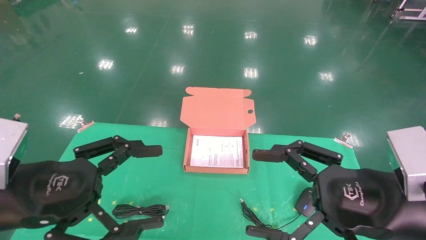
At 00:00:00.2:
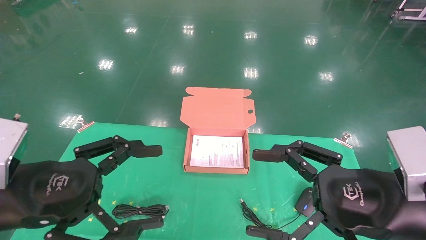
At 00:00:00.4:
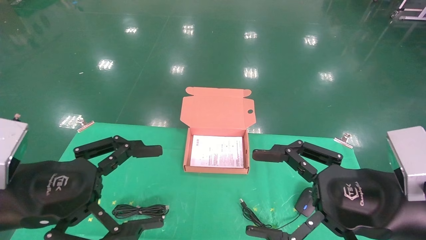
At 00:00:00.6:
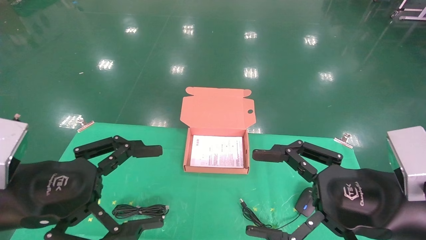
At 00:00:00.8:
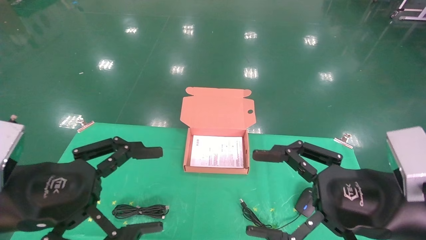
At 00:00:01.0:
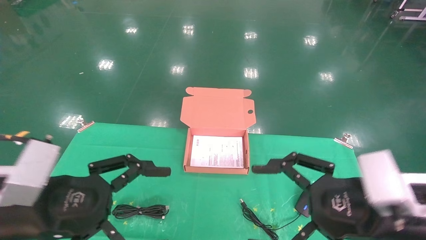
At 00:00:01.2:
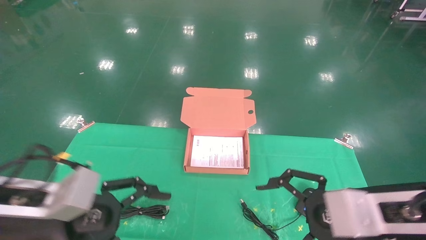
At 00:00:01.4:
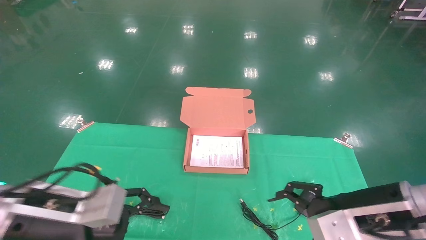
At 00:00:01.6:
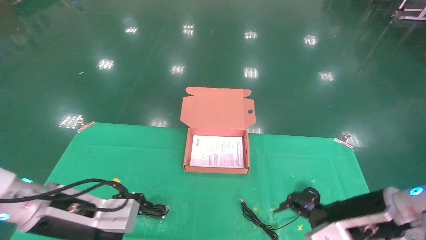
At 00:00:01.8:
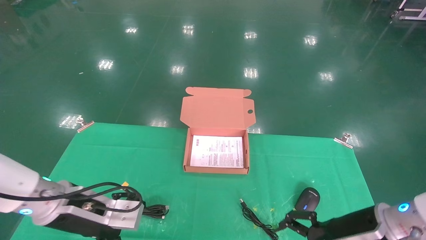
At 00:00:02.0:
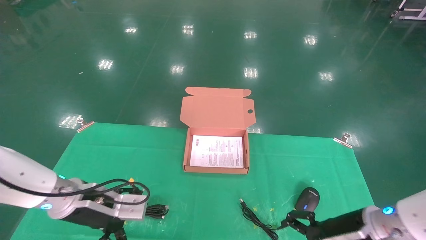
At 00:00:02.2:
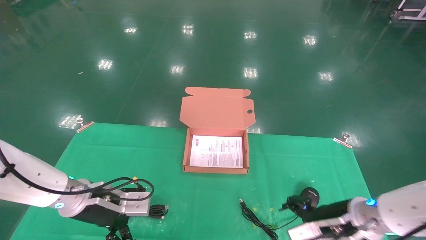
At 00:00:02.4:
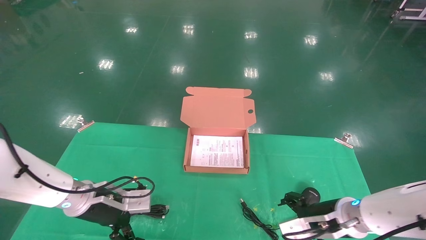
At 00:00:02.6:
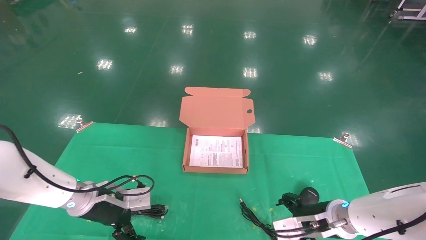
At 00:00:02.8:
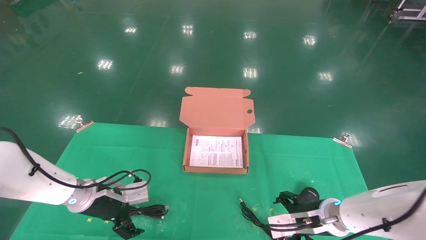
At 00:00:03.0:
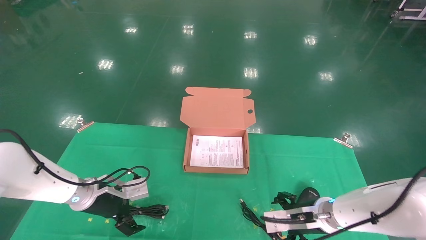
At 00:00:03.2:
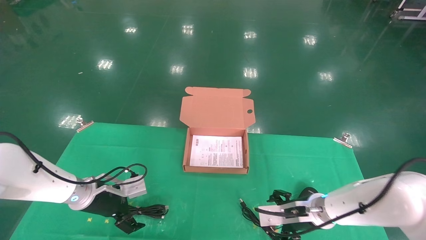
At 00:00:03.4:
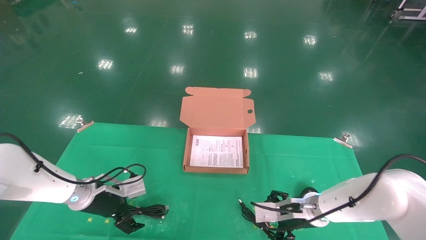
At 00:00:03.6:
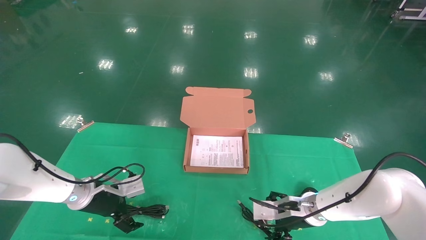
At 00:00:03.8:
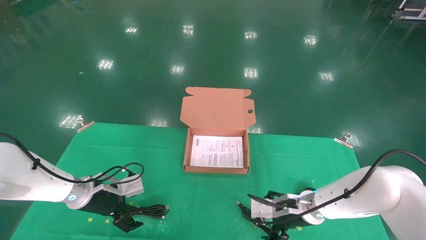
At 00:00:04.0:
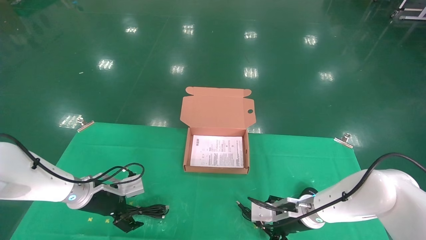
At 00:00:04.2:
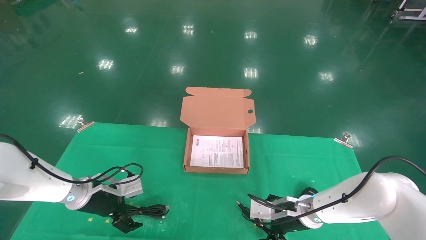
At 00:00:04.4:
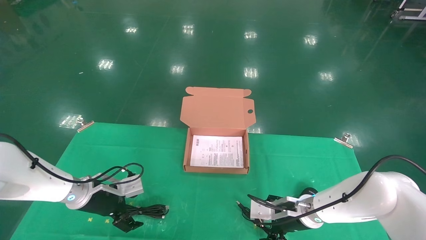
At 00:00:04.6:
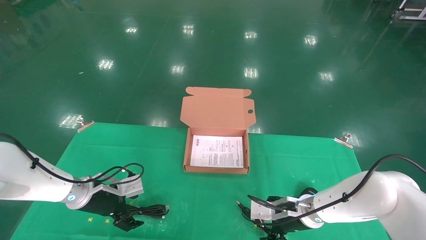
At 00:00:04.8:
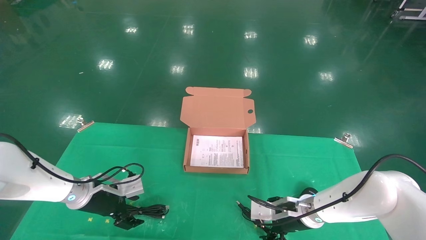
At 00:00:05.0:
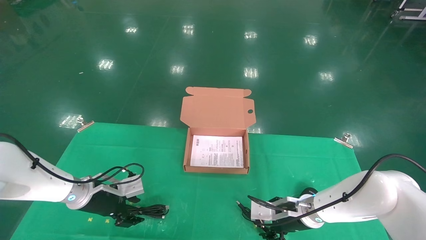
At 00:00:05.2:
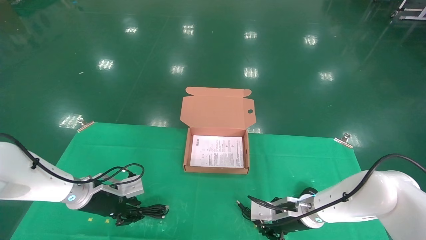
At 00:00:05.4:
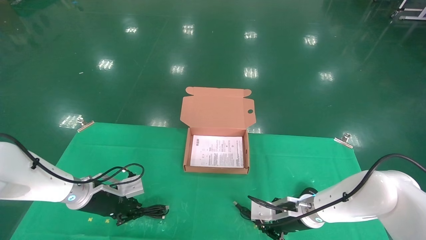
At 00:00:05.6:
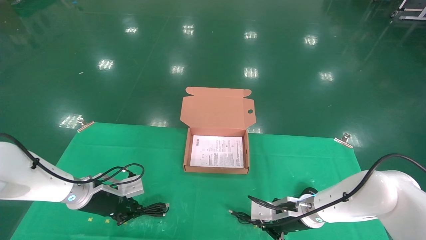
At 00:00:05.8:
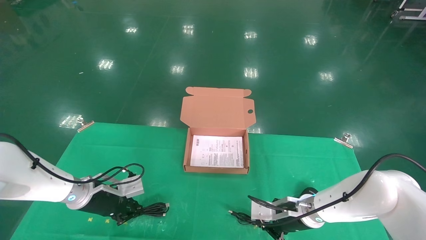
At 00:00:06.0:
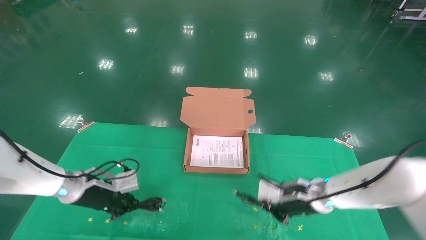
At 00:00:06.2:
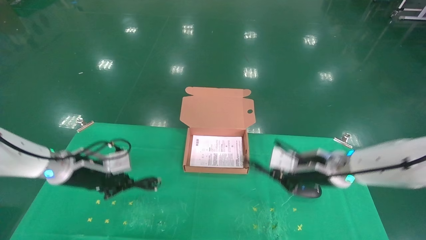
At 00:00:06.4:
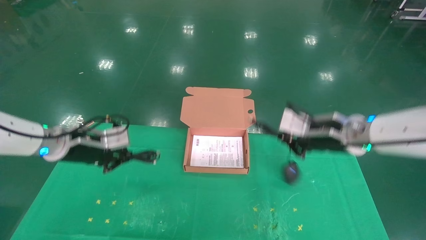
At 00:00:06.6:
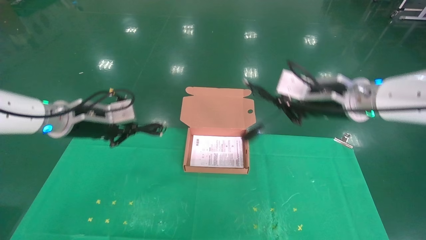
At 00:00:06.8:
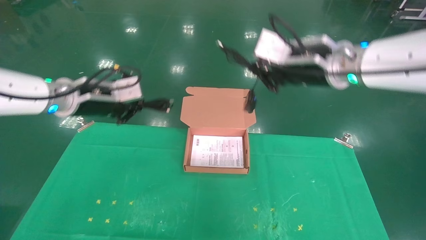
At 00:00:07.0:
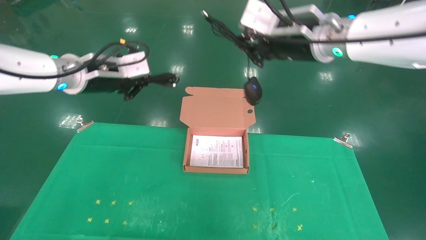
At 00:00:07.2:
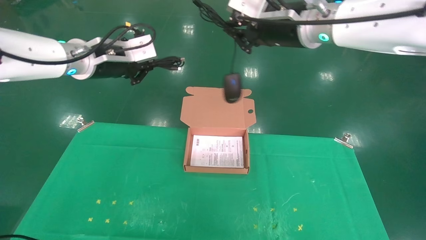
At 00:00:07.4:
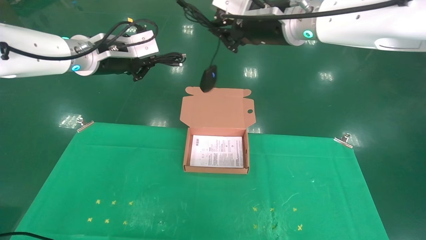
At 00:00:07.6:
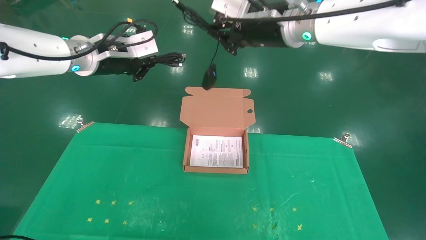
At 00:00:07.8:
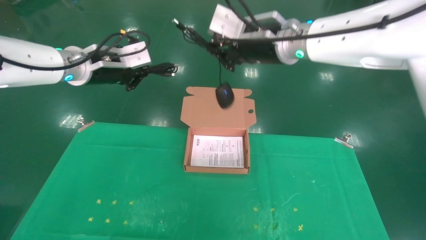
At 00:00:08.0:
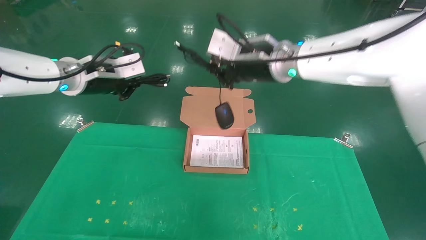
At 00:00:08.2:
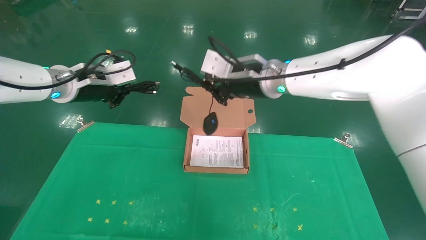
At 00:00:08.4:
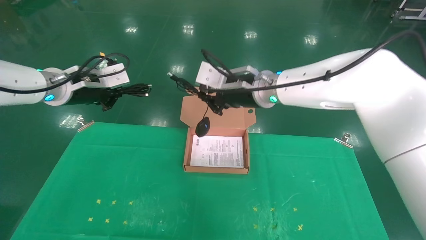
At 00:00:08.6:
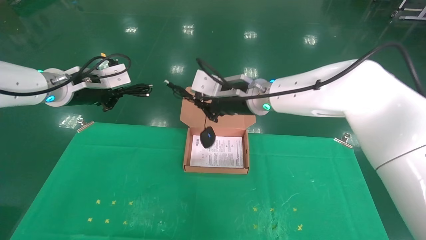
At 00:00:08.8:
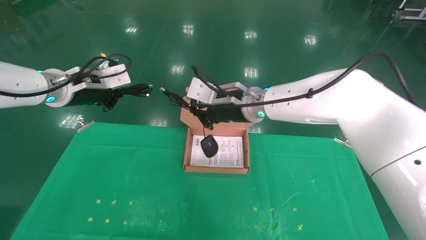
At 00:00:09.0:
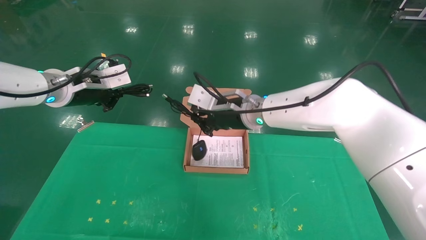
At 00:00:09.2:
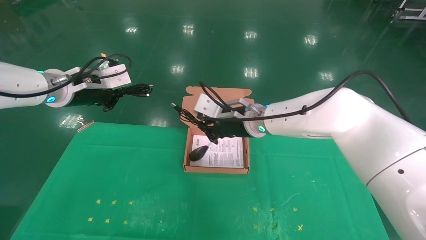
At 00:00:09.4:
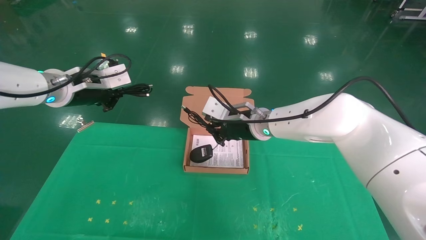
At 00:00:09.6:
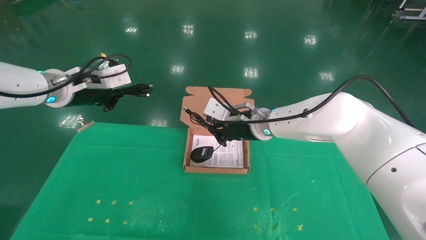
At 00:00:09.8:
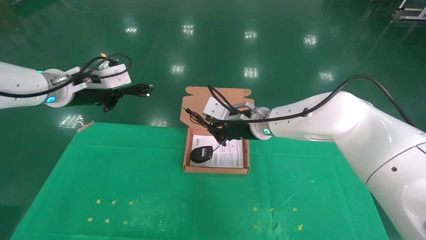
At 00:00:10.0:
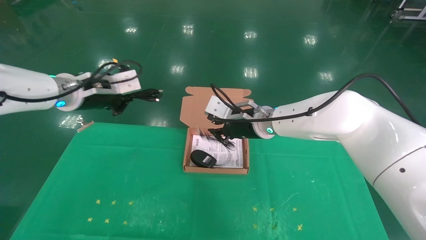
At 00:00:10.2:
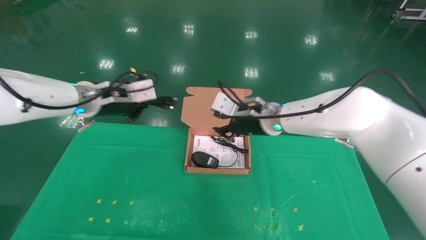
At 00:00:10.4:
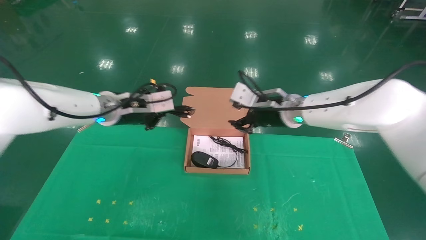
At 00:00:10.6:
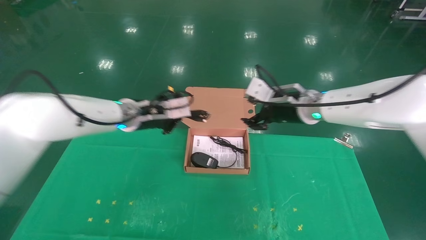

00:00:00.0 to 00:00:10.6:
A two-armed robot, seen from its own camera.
Task of the whole recording: grasp data cable left put into box grasp mouse right put into box.
Step, 00:00:01.2 to 00:00:06.4: Grab and pick up both the mouse and power cord from the accessory packaging area at the same time.
00:00:00.0 to 00:00:01.6: The grippers both shift forward and downward by about 10 cm.
00:00:01.6 to 00:00:03.0: Both grippers move forward and downward, some 15 cm.
00:00:03.0 to 00:00:04.6: The grippers make only small movements.
00:00:04.6 to 00:00:06.0: The right gripper travels upward by about 5 cm, and closes its fingers. The left gripper closes.
00:00:06.0 to 00:00:07.6: The two grippers go approximately 30 cm upward.
00:00:07.6 to 00:00:09.0: The left gripper heads to the left and downward, covering roughly 5 cm, while the right gripper travels downward by approximately 15 cm.
00:00:09.0 to 00:00:10.6: The right gripper heads to the right, covering approximately 10 cm, and opens its fingers, while the left gripper goes some 15 cm to the right, downward and forward.

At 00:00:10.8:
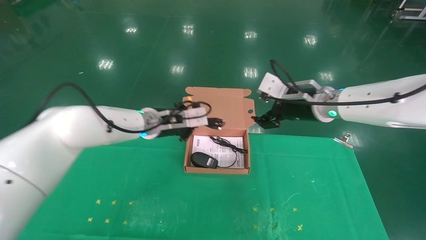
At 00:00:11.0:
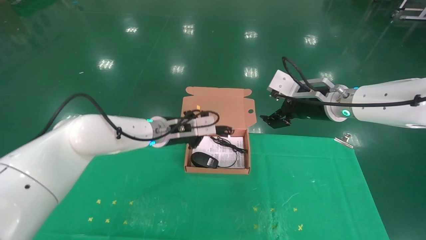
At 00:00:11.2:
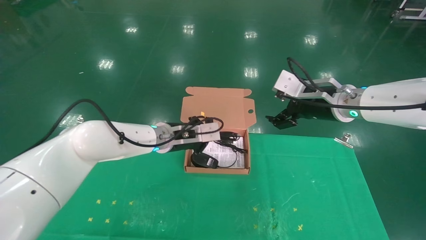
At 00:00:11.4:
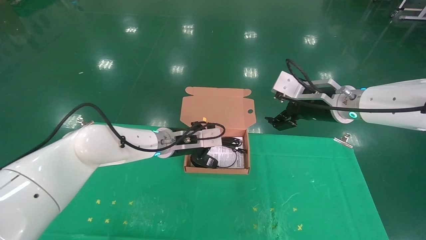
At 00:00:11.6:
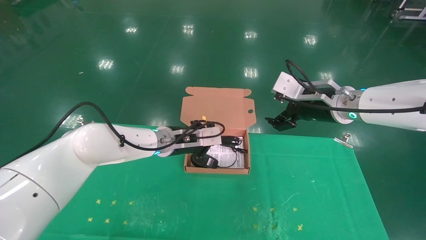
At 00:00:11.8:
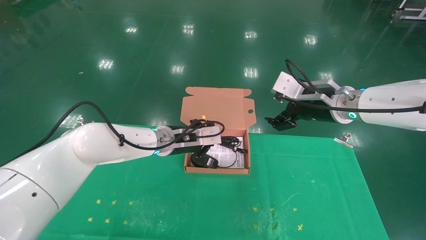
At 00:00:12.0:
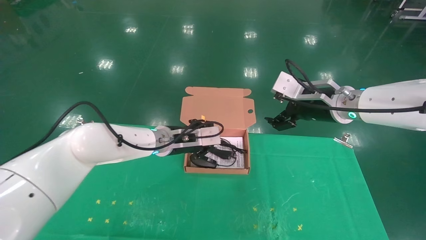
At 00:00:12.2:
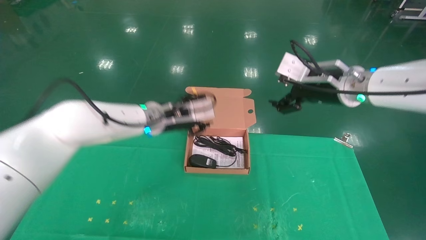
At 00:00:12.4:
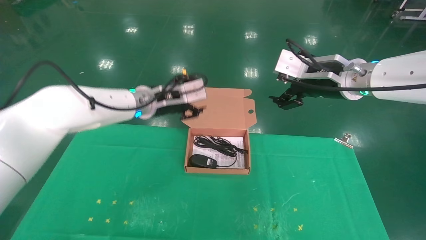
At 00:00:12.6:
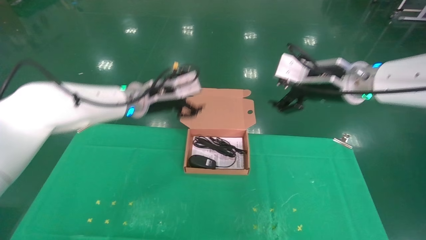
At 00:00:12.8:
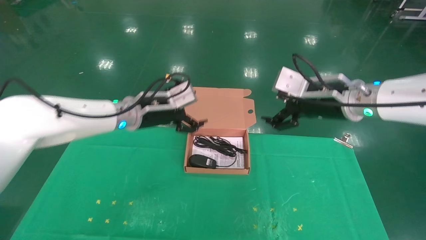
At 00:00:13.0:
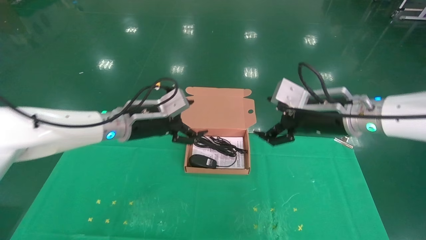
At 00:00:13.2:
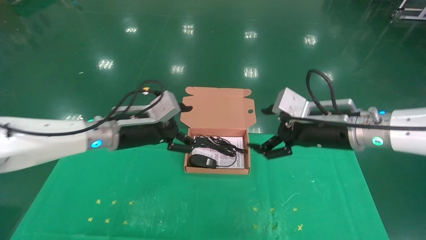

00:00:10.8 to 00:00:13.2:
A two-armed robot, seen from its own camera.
Task of the whole recording: grasp data cable left put into box grasp mouse right put into box.
00:00:10.8 to 00:00:12.0: The grippers stay close to where they were, moving slightly.
00:00:12.0 to 00:00:13.2: The left gripper moves to the left and backward, some 10 cm, and opens up. Meanwhile the right gripper travels backward by approximately 5 cm.
